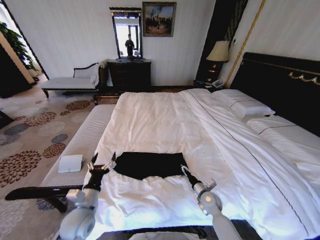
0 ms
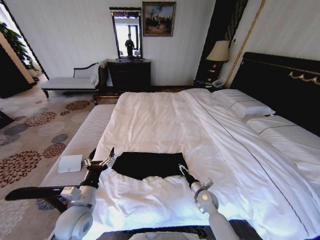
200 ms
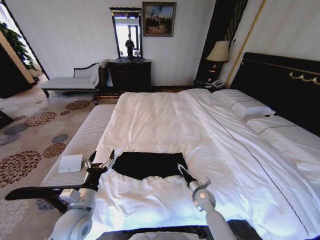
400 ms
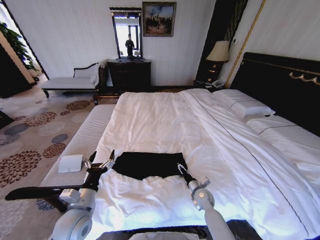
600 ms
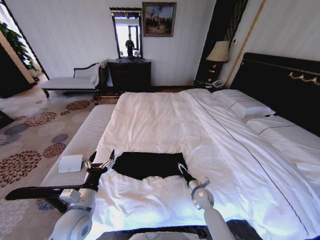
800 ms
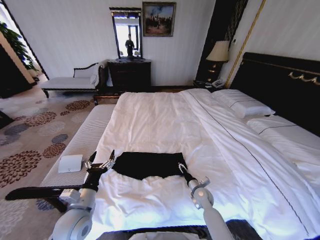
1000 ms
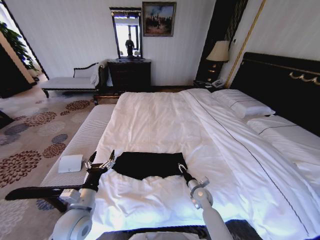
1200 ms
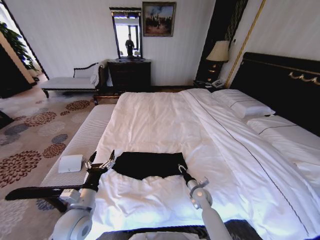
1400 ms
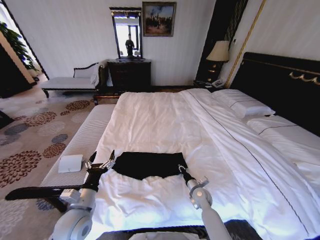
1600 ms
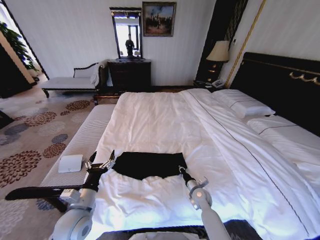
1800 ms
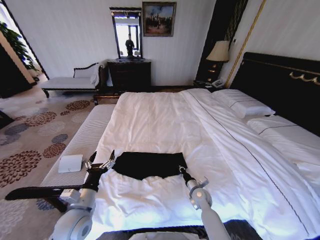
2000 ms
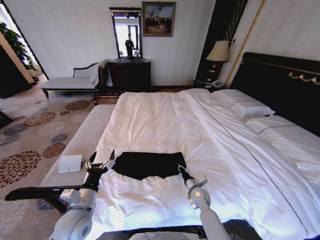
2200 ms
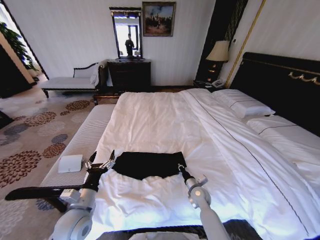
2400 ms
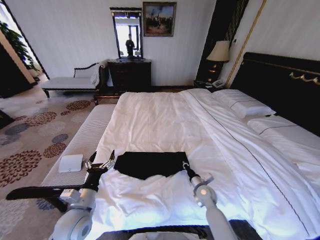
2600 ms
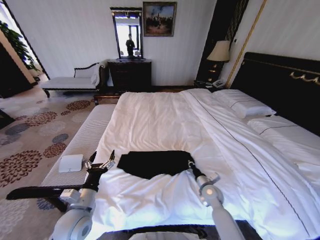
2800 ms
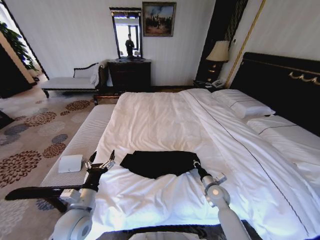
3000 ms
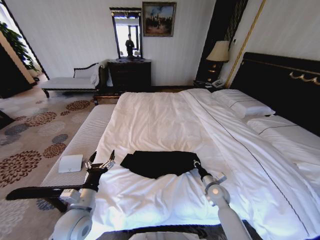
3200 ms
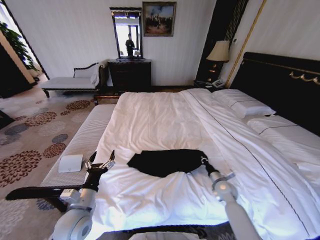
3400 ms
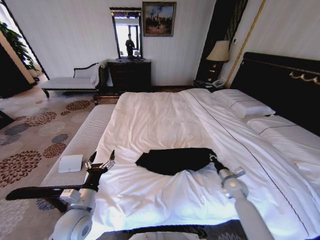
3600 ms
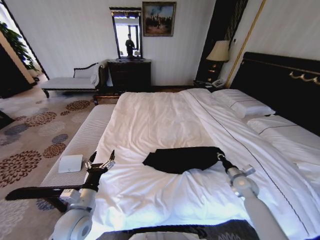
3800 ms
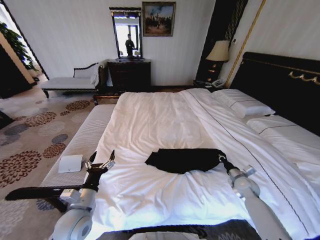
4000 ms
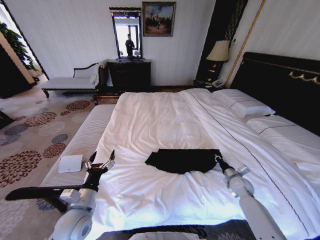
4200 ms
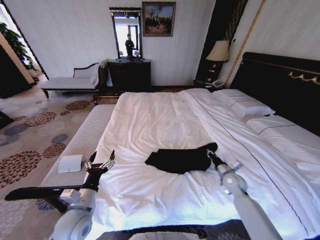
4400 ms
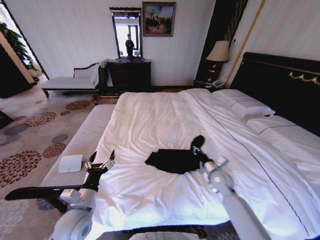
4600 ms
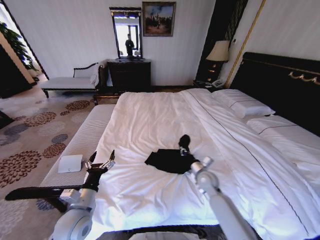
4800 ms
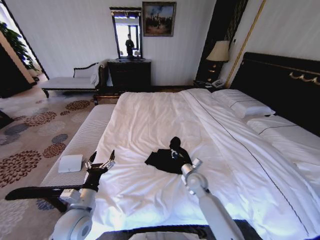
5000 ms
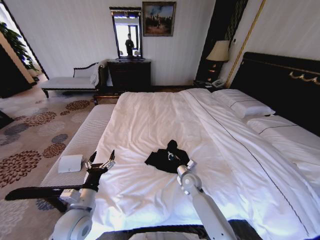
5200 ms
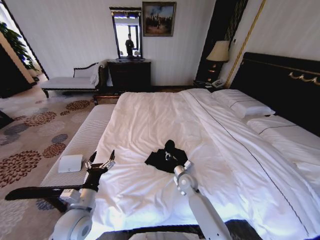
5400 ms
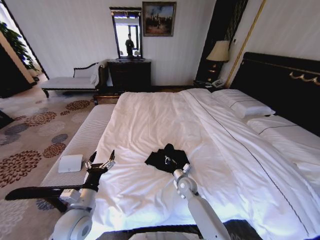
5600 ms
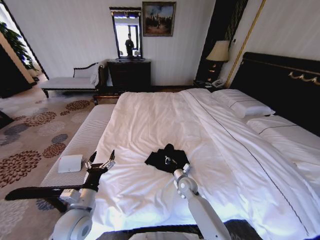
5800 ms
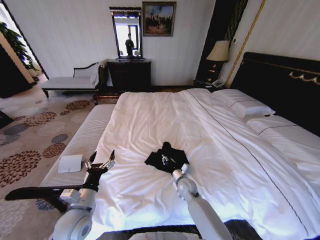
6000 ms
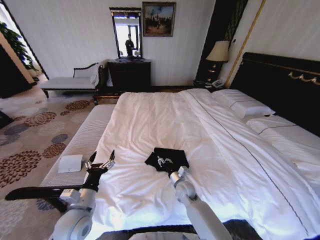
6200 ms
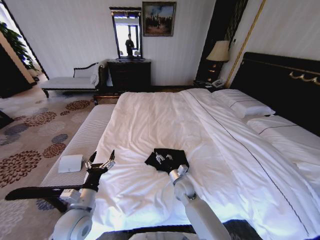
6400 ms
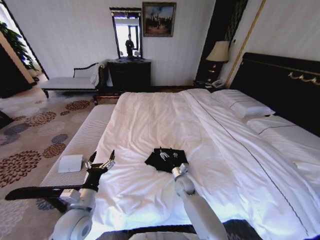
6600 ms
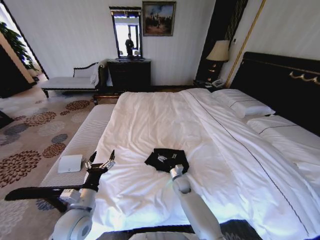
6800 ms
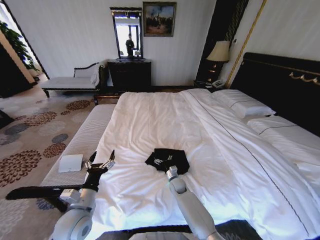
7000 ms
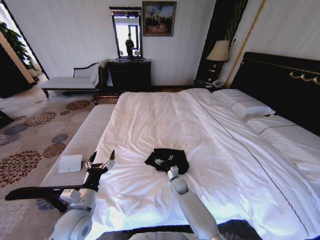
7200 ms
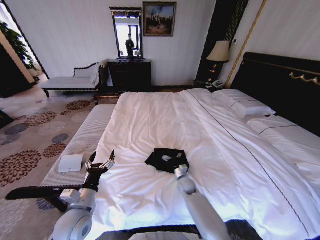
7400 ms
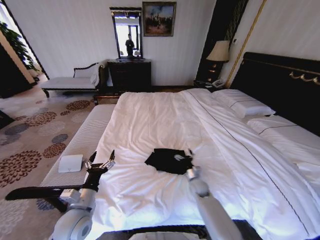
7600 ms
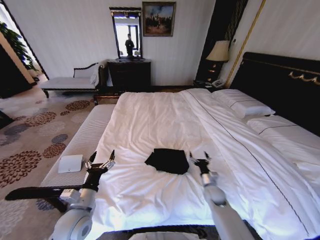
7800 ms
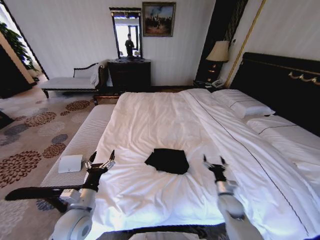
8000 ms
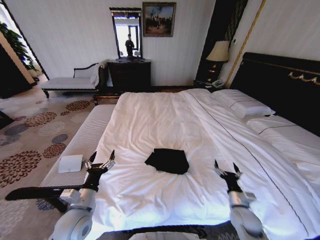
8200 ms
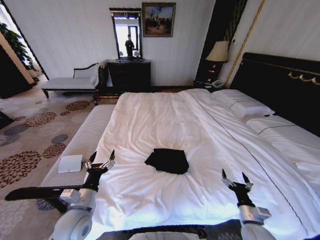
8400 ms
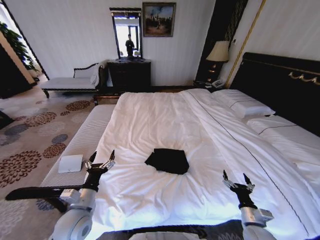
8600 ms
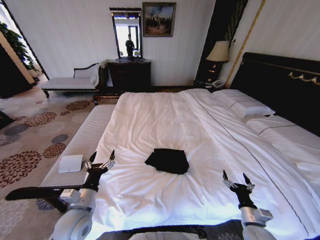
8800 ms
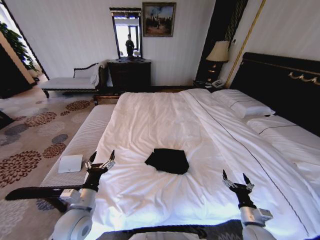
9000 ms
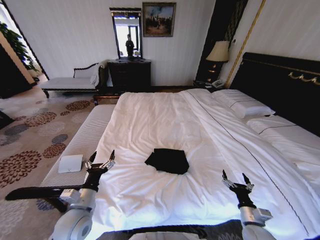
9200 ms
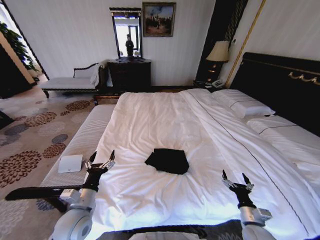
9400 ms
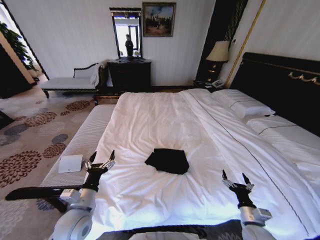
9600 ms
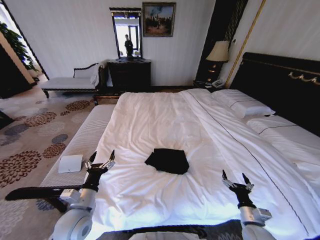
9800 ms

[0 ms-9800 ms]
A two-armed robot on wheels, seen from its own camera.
Task of the whole recording: Fold the clothes on the bed.
0 ms to 1400 ms: The right gripper closes up.
1400 ms to 2800 ms: The right gripper ends up approximately 5 cm from where it was, and closes up.
2800 ms to 4200 ms: The right gripper heads to the right, covering approximately 15 cm.
4200 ms to 5600 ms: The right gripper is displaced to the left by about 25 cm.
5600 ms to 7000 ms: The right gripper is displaced downward by roughly 5 cm, and opens up.
7000 ms to 8400 ms: The right gripper travels to the right and backward by some 35 cm.
8400 ms to 9800 ms: Neither gripper changes place.
